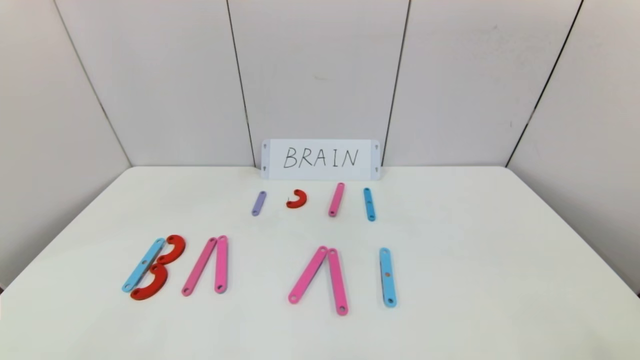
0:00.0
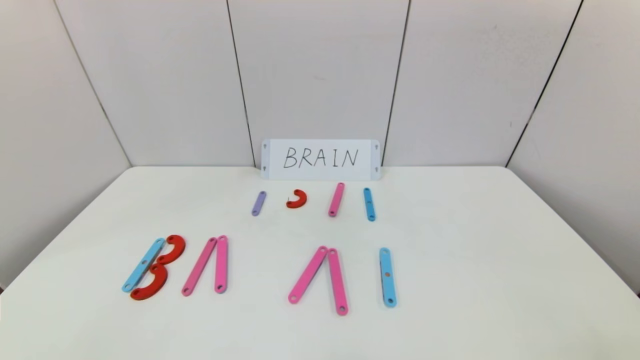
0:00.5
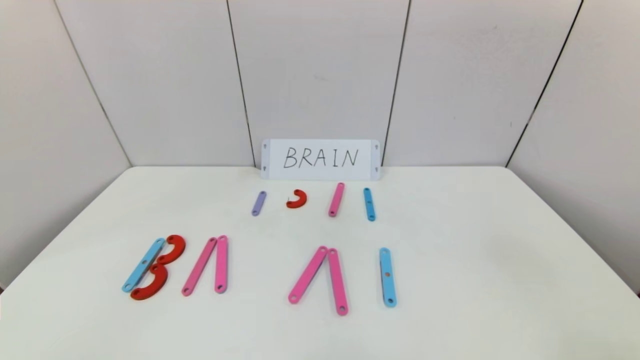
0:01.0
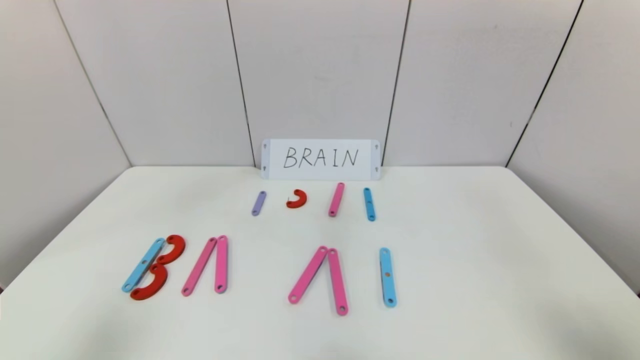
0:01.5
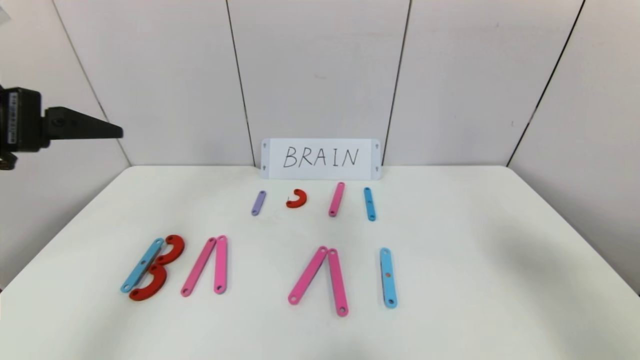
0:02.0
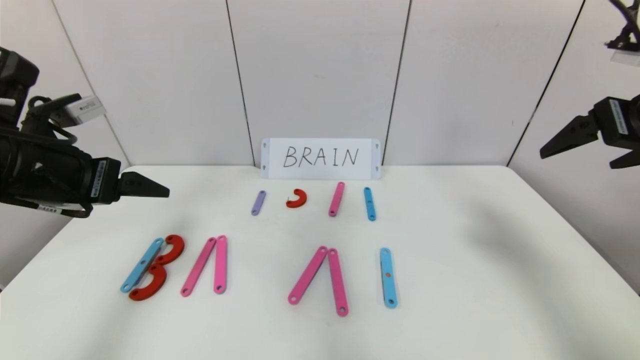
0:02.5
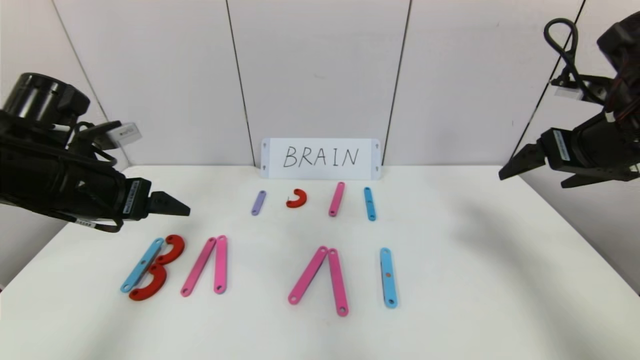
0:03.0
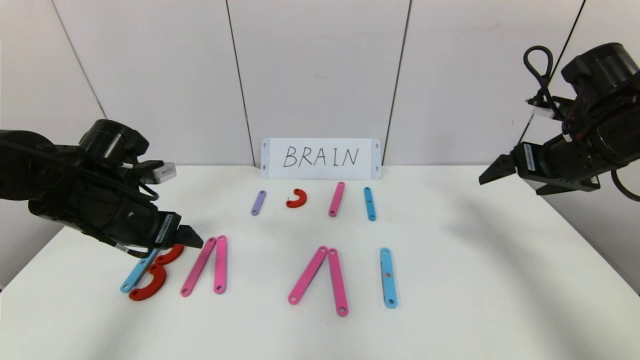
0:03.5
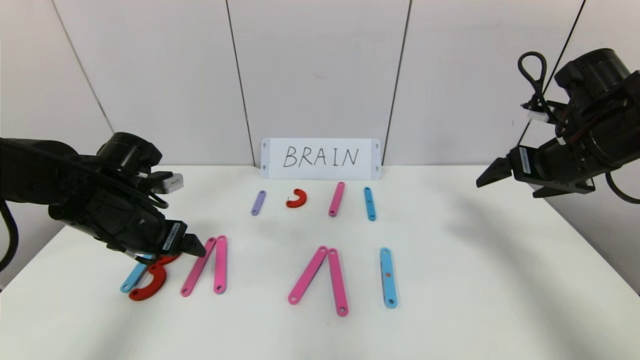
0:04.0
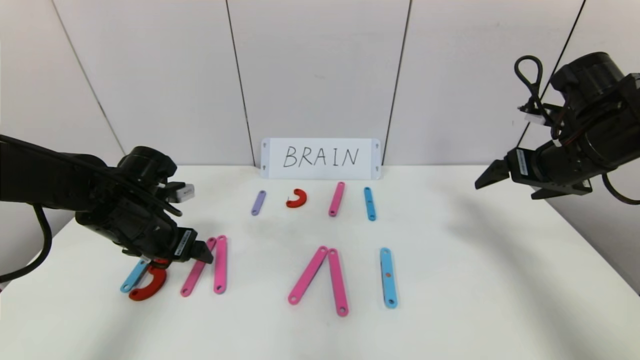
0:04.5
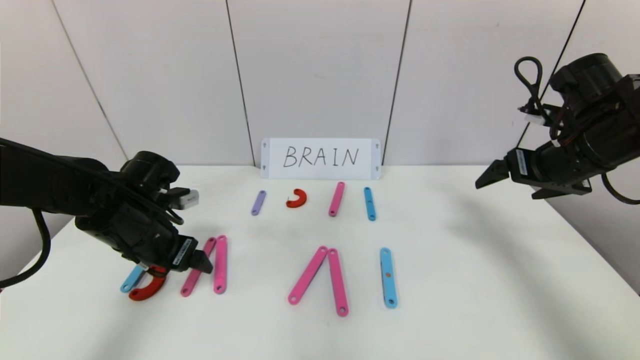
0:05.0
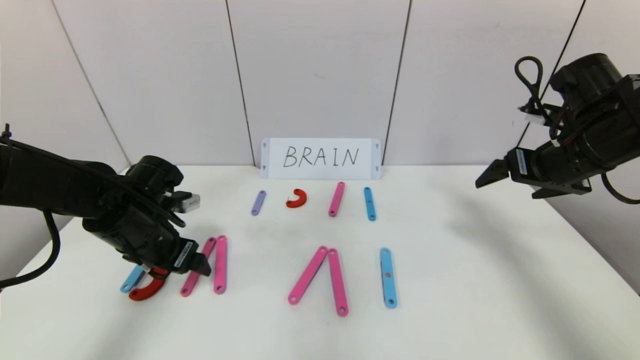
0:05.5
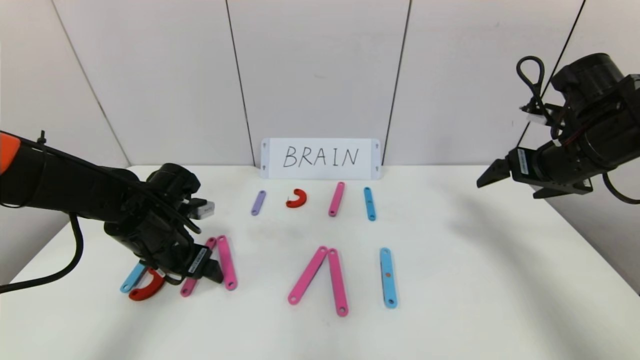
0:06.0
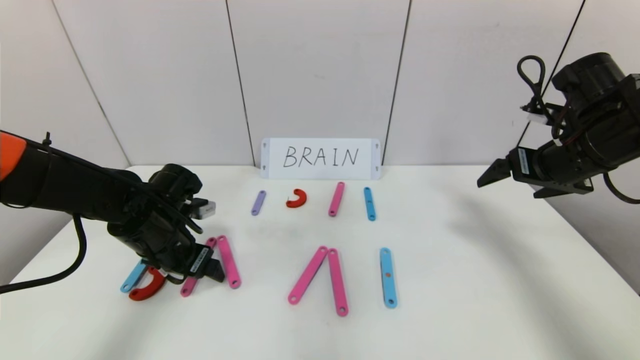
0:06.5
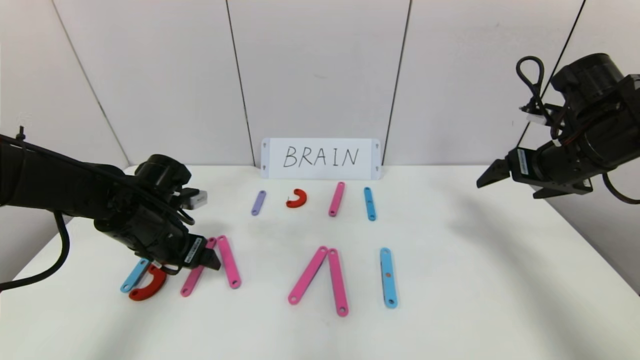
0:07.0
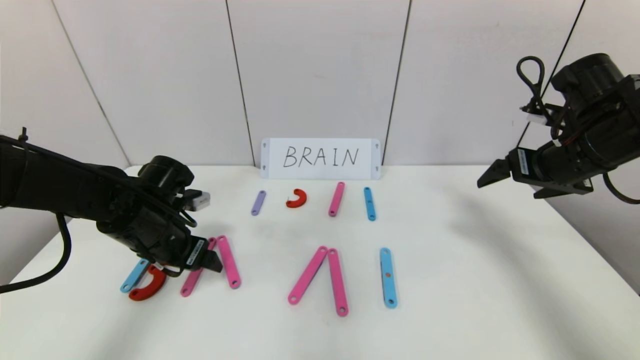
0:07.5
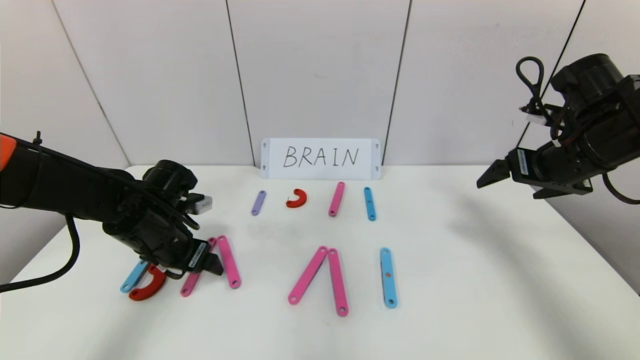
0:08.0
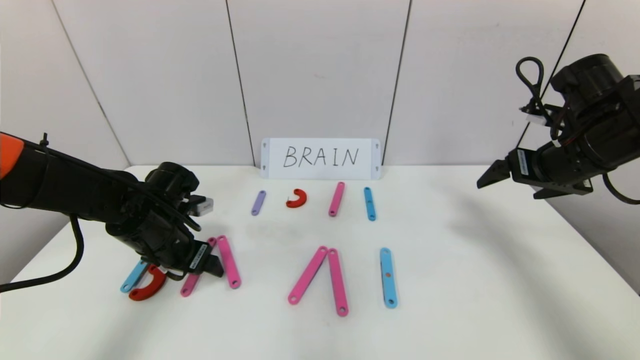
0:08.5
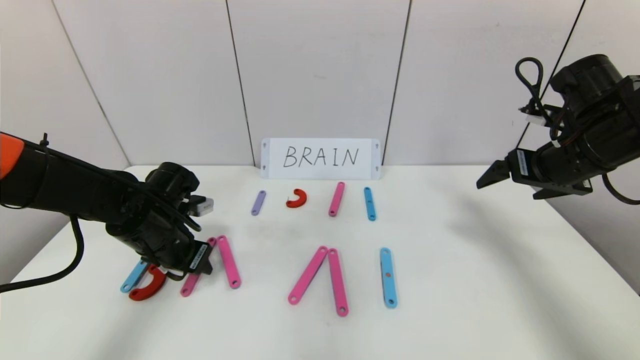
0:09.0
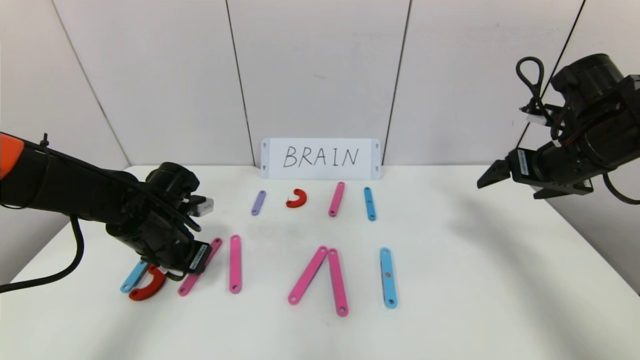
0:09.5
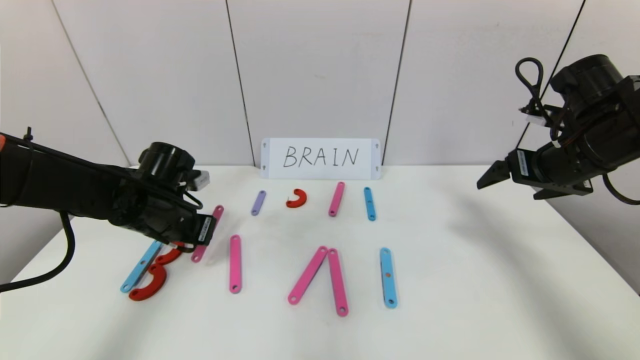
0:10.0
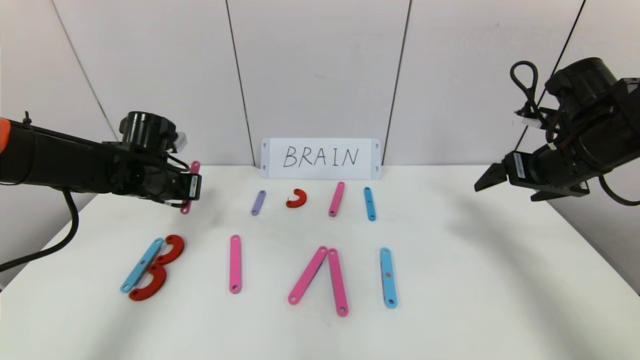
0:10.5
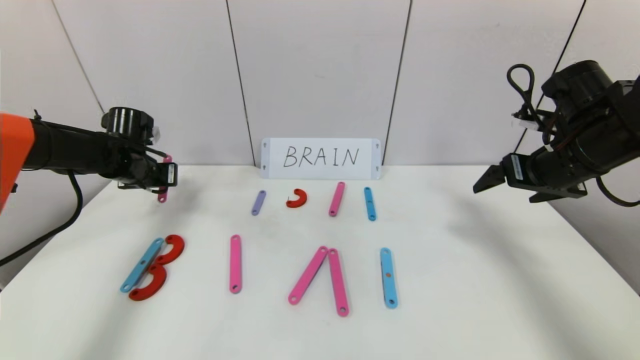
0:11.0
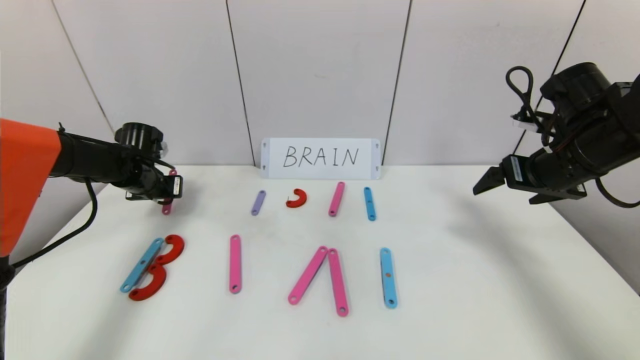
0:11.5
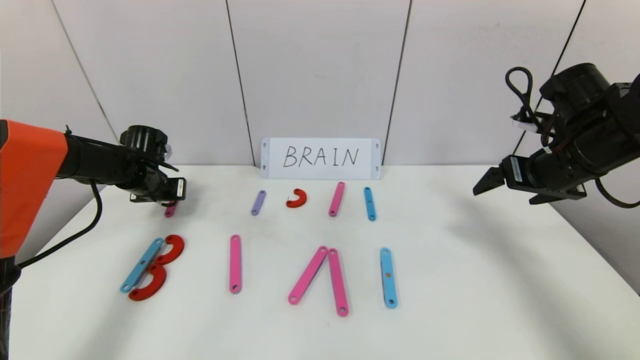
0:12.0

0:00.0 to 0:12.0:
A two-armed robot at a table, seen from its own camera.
Task of the whole recording: rearrange the word baai as brain.
0:00.0 to 0:02.0: Both grippers move upward and forward, approximately 35 cm.
0:02.0 to 0:04.0: The left gripper travels downward and forward by about 20 cm. The right gripper shifts roughly 20 cm forward and downward.
0:04.0 to 0:06.0: The left gripper shifts roughly 5 cm downward.
0:06.0 to 0:08.0: The grippers make only small movements.
0:08.0 to 0:10.0: The left gripper closes its fingers.
0:10.0 to 0:12.0: The left gripper shifts roughly 15 cm forward and to the left.

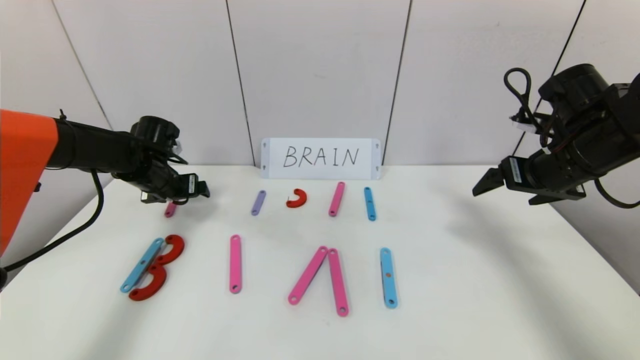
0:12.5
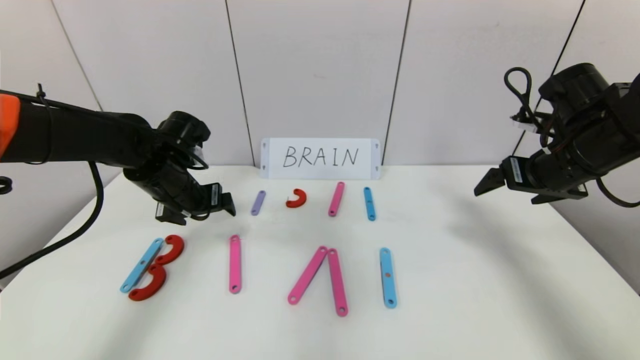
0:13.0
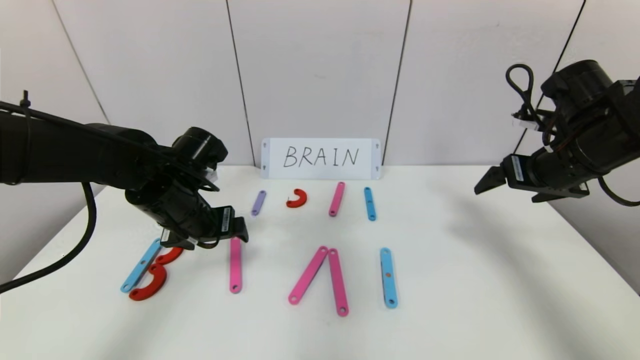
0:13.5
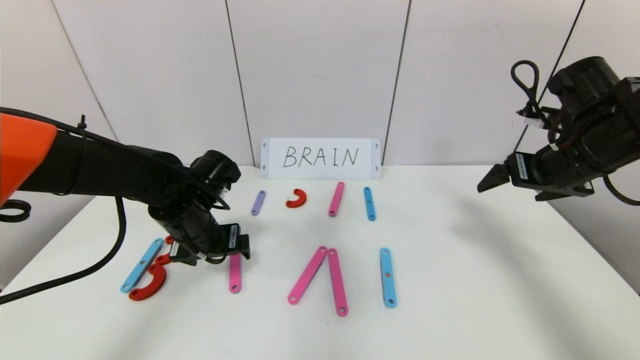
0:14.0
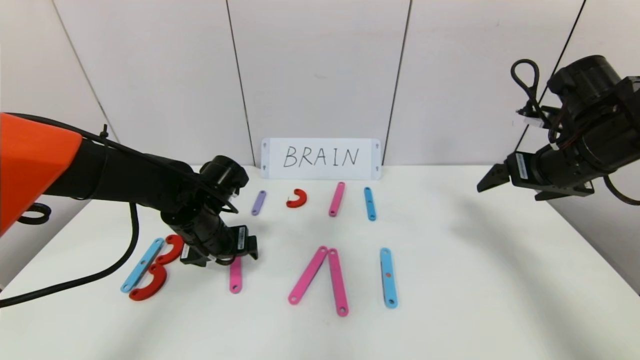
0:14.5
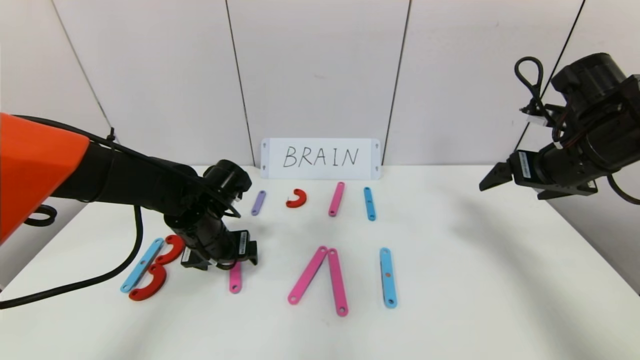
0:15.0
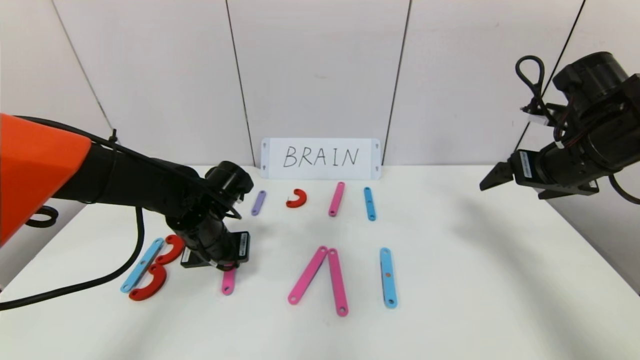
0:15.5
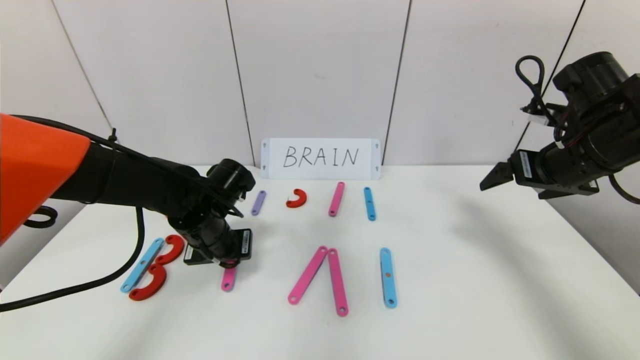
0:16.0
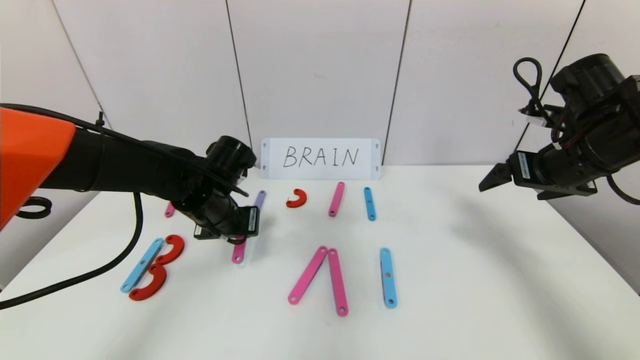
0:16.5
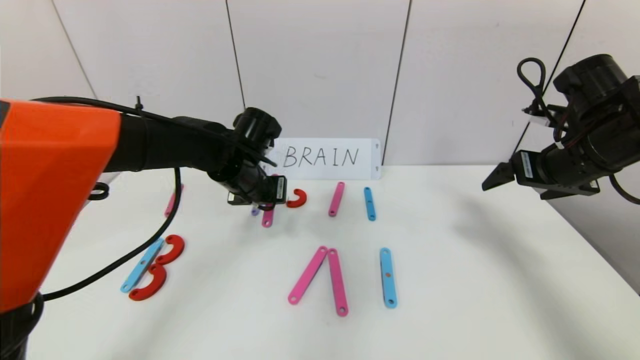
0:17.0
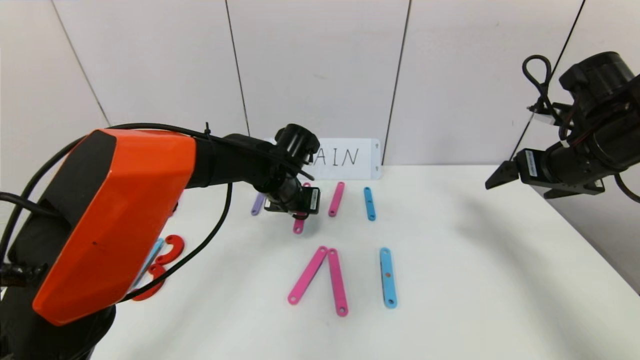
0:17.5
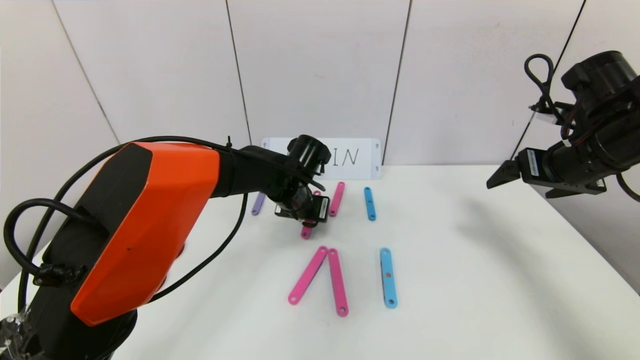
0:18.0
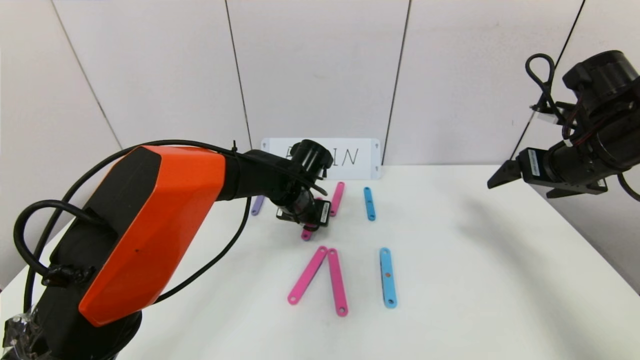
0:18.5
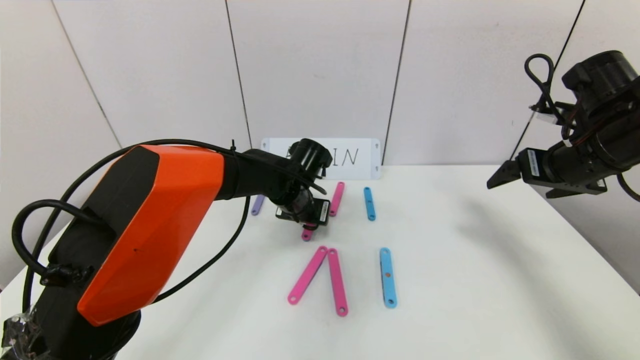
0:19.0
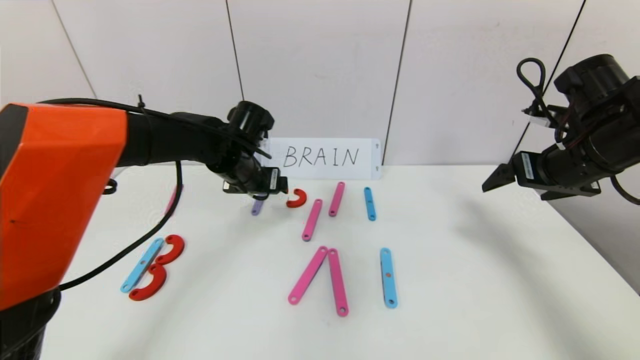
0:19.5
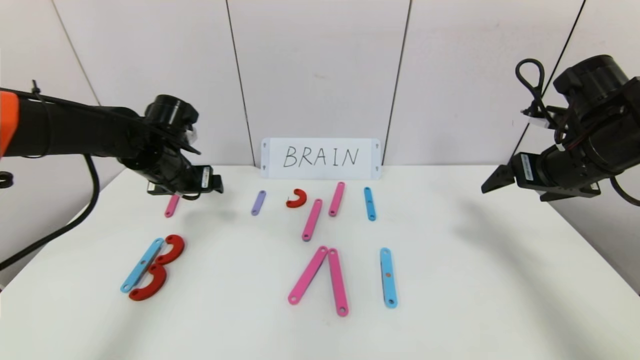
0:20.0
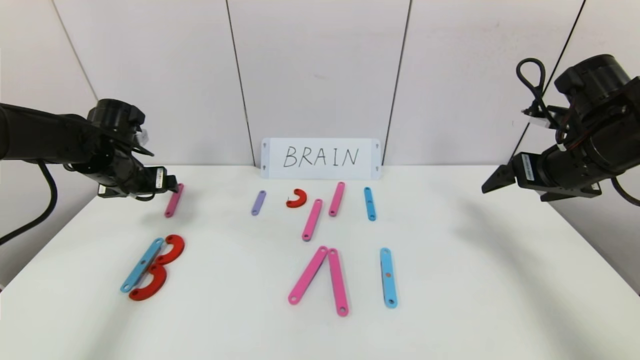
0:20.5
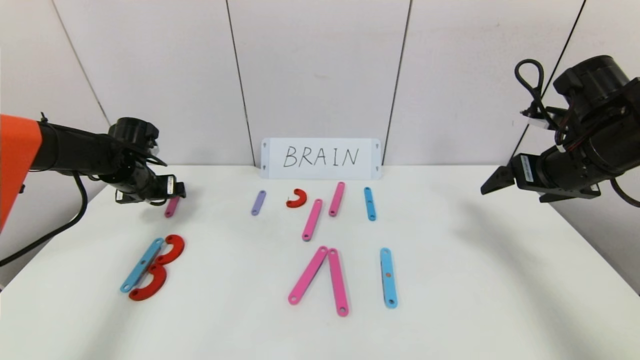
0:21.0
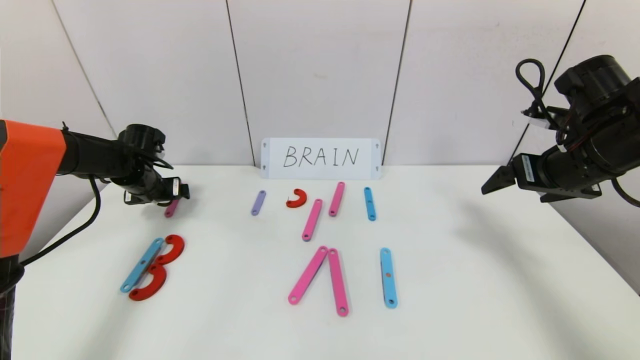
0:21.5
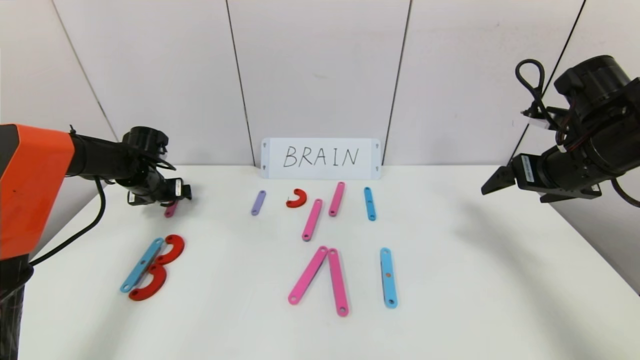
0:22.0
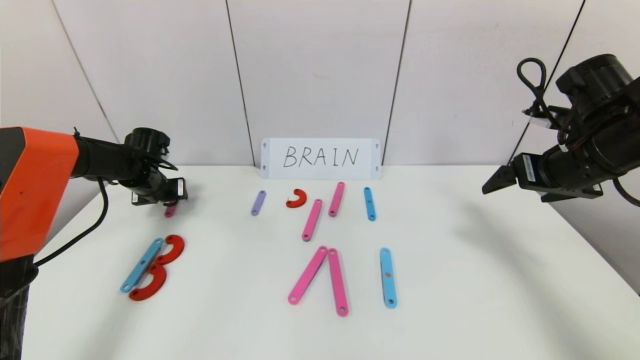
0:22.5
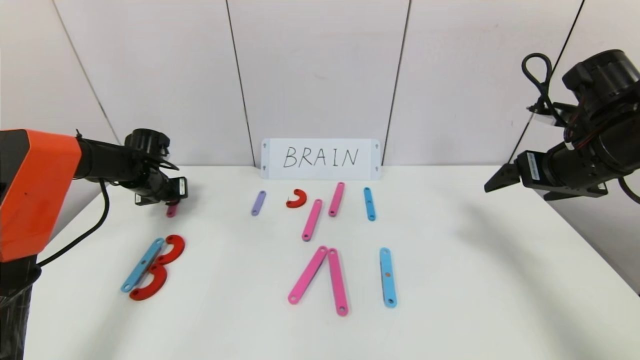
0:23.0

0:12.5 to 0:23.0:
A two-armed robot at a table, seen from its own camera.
Task of the whole recording: rearrange the word baai as brain.
Step, 0:12.5 to 0:18.5: Disassemble the second character A.
0:12.5 to 0:14.5: The left gripper goes about 15 cm to the right and backward.
0:14.5 to 0:16.5: The left gripper closes up.
0:16.5 to 0:19.0: The left gripper is displaced to the right and forward by about 15 cm, and opens its fingers.
0:19.0 to 0:21.0: The left gripper heads to the left, covering about 30 cm.
0:21.0 to 0:23.0: The left gripper changes place by about 5 cm, and closes up.
